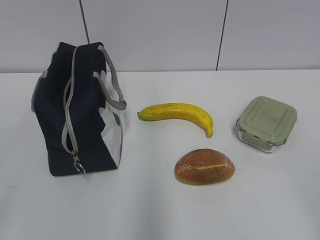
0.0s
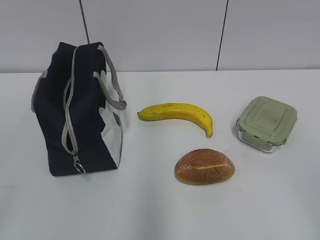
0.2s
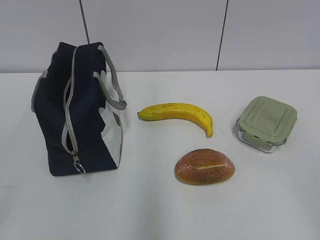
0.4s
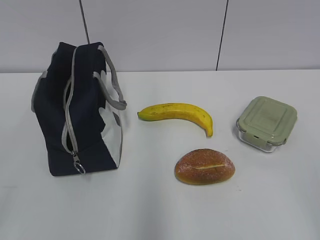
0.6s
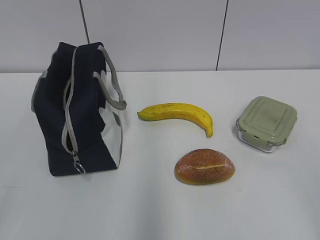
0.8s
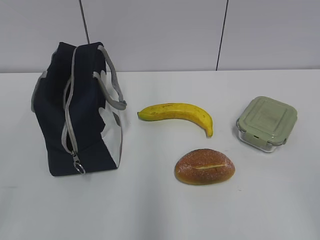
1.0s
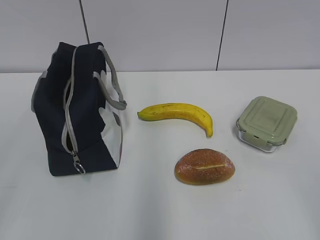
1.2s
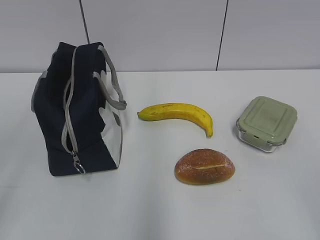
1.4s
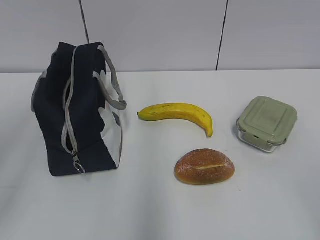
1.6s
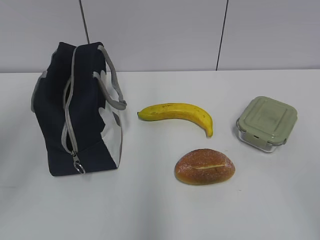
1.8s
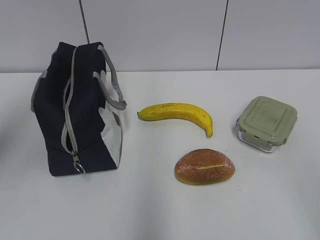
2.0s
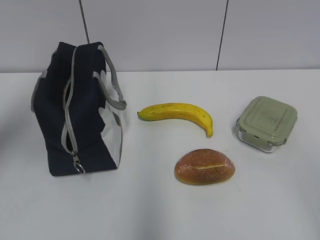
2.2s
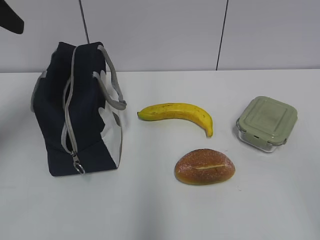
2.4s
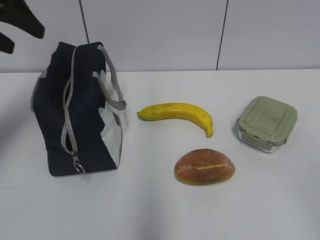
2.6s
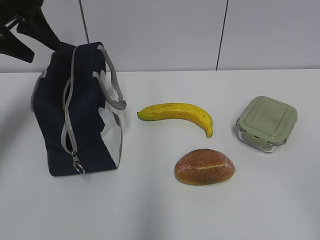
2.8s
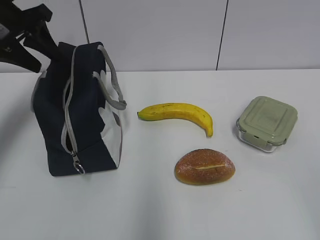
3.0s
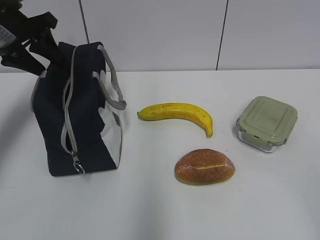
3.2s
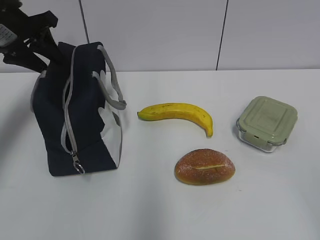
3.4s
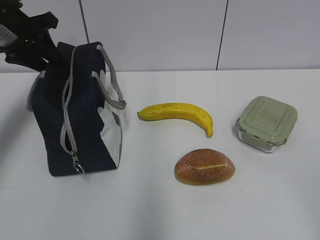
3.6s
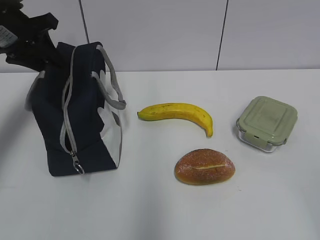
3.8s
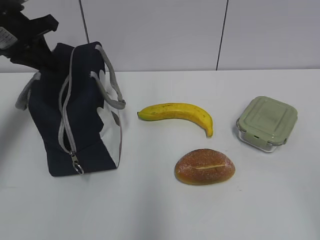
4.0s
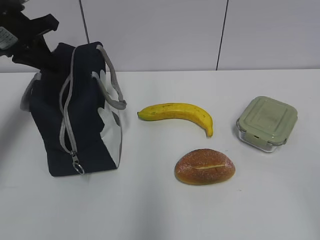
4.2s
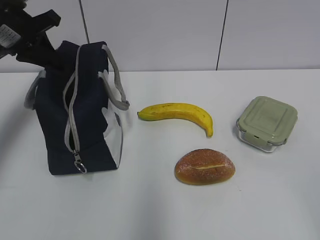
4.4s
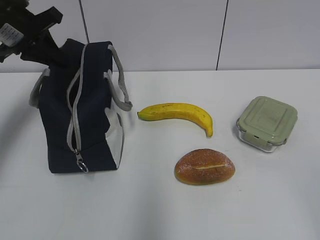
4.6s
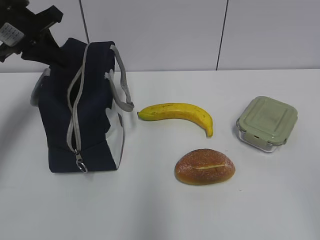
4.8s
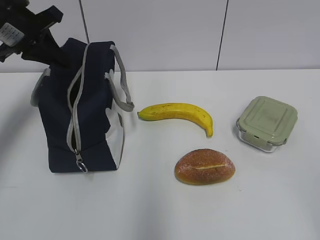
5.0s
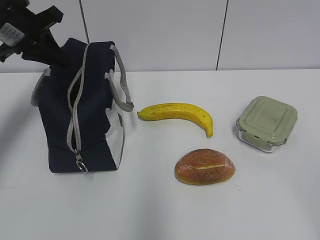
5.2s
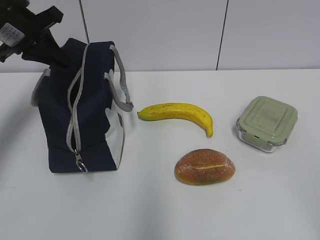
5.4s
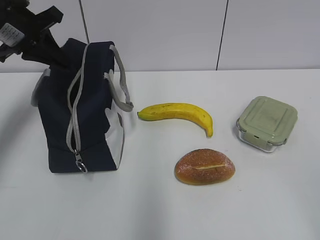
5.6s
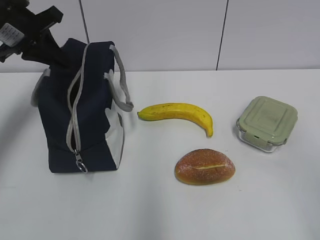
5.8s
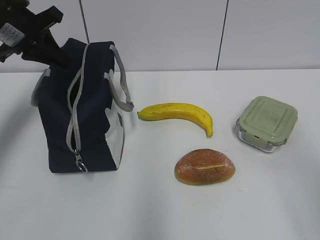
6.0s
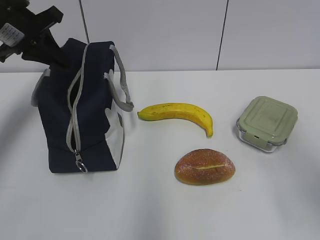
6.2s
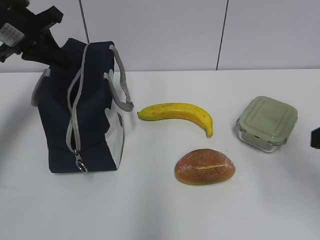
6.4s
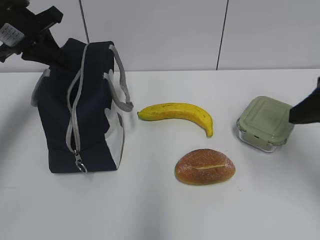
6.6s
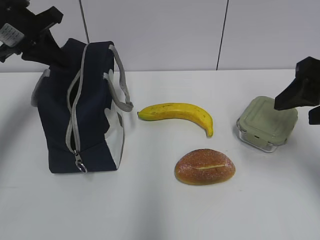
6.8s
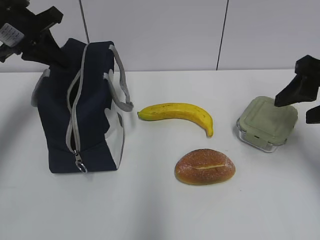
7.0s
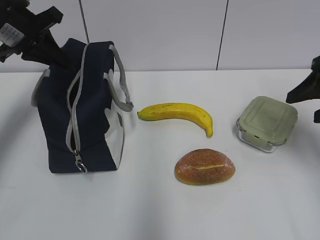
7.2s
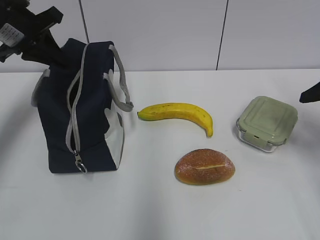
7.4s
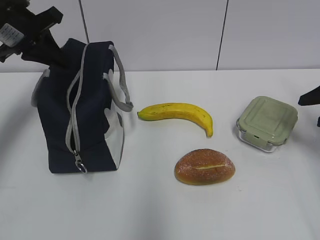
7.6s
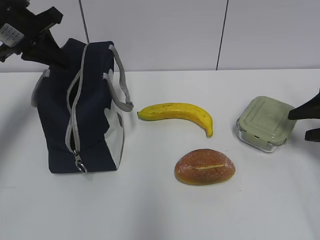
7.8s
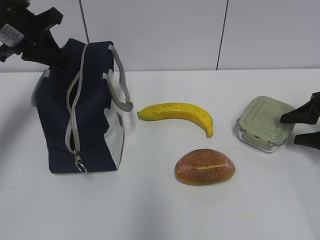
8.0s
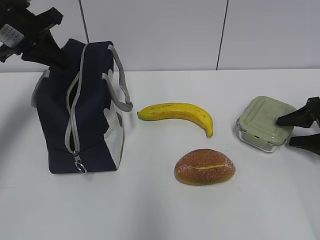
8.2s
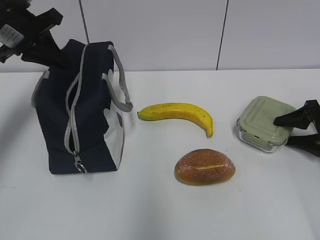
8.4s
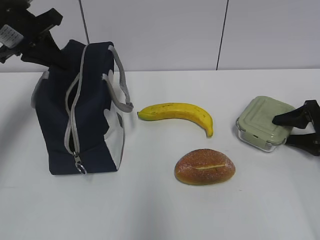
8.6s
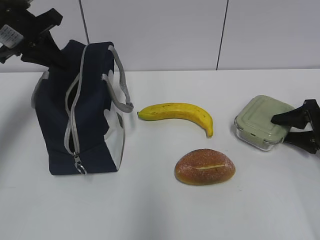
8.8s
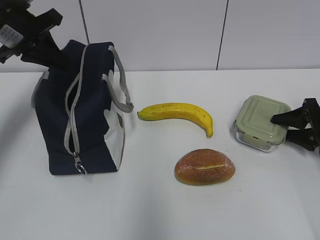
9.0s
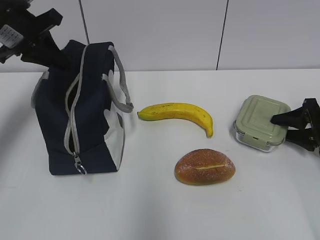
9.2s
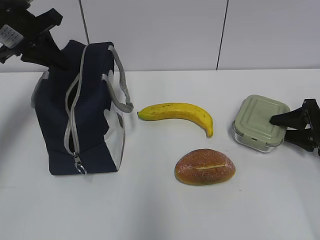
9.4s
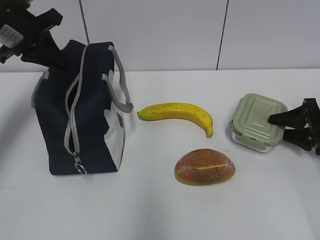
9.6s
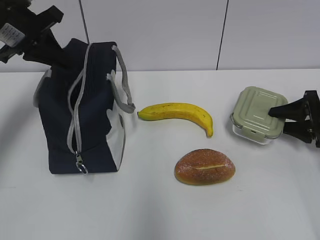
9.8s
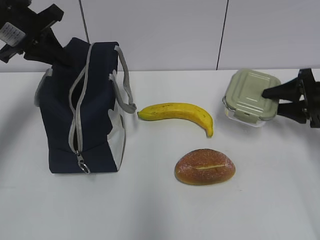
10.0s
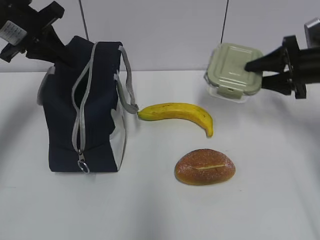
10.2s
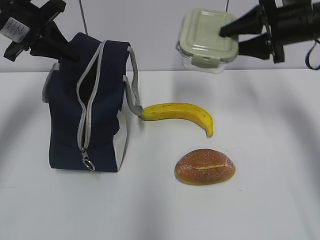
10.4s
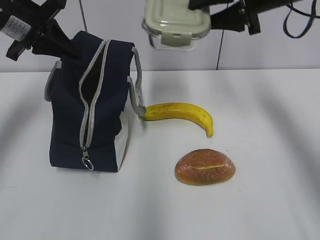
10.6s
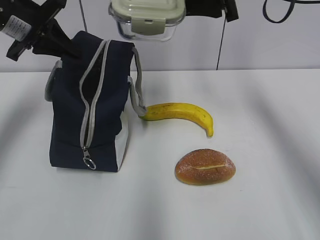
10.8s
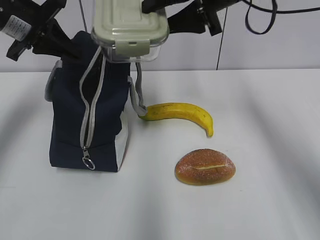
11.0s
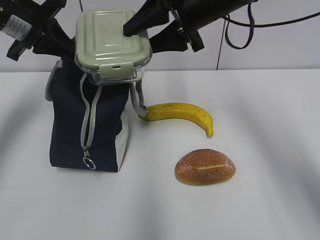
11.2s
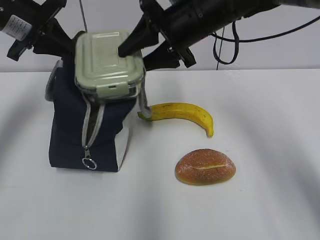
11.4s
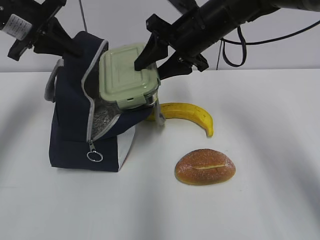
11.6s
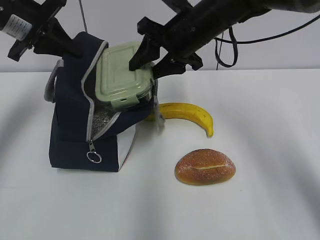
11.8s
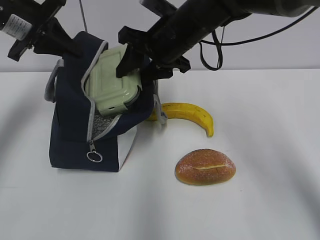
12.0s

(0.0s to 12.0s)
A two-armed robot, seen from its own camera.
Step, 0.0s - 9.0s: Grab the lunch box with your right hand.
1.6s - 3.0s: The left gripper shifts some 30 cm forward.
3.0s - 4.4s: The left gripper closes.
4.4s - 6.0s: The right gripper moves forward, some 5 cm.
6.0s - 7.6s: The right gripper travels forward by approximately 25 cm.
7.6s - 9.0s: The right gripper is displaced downward by approximately 10 cm.
9.0s - 10.4s: The right gripper shifts some 20 cm upward and to the left.
10.4s - 12.0s: The right gripper shifts about 20 cm to the left.

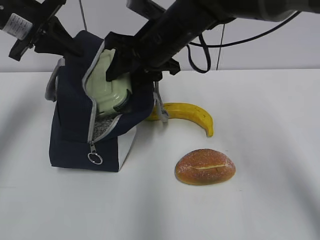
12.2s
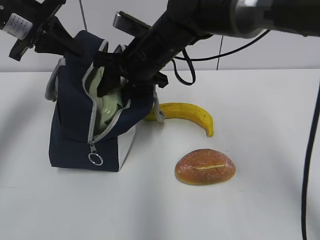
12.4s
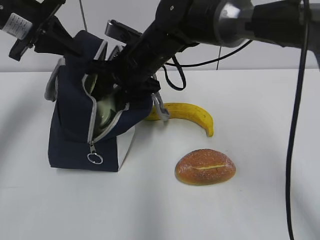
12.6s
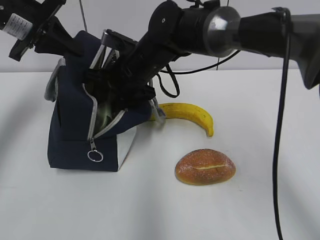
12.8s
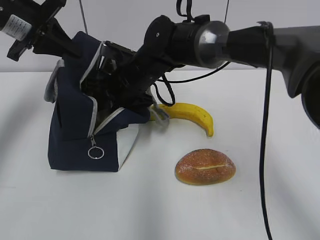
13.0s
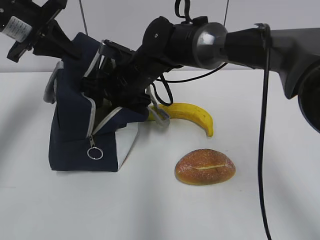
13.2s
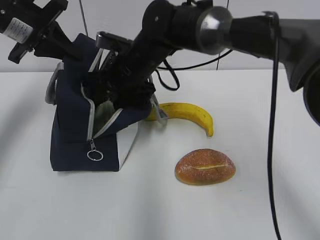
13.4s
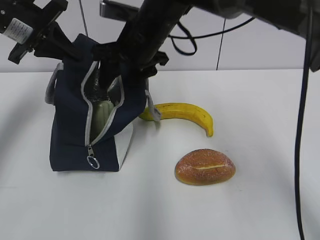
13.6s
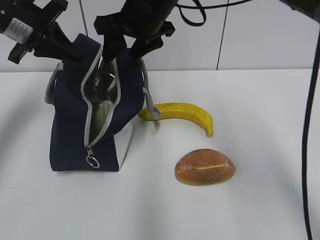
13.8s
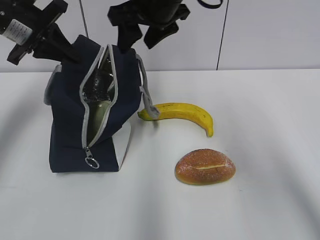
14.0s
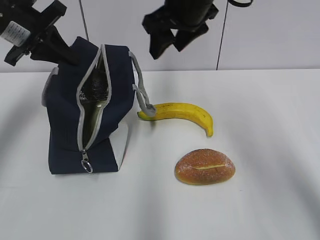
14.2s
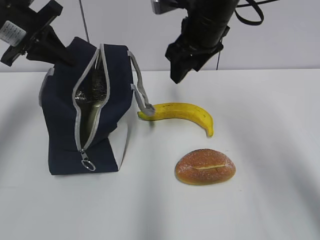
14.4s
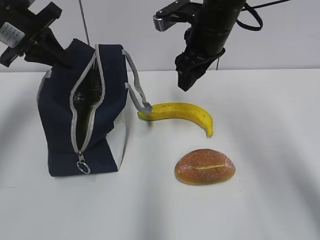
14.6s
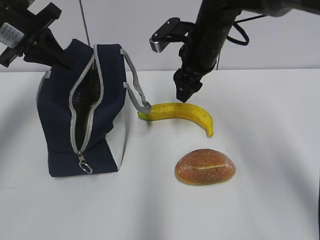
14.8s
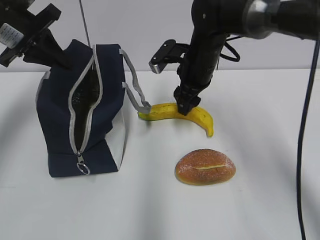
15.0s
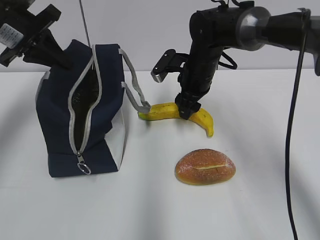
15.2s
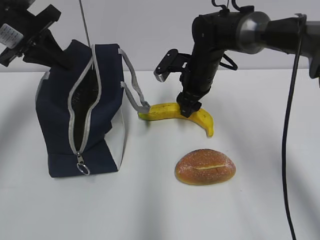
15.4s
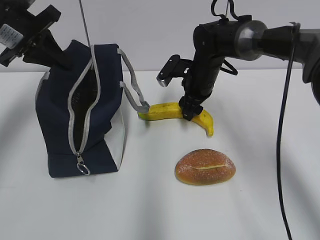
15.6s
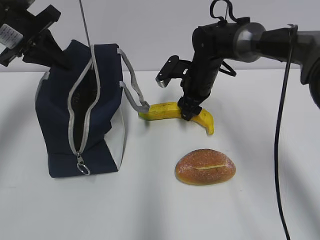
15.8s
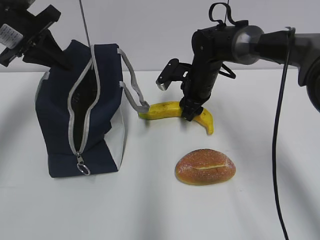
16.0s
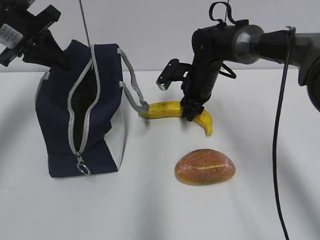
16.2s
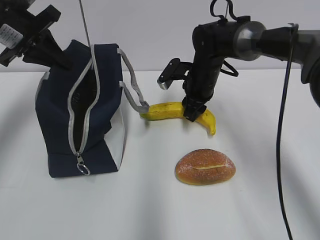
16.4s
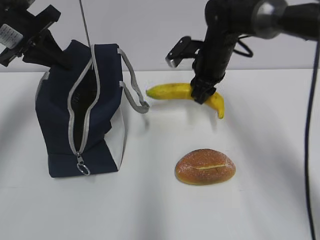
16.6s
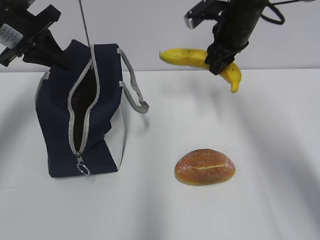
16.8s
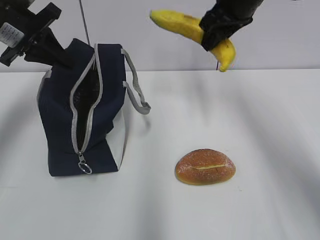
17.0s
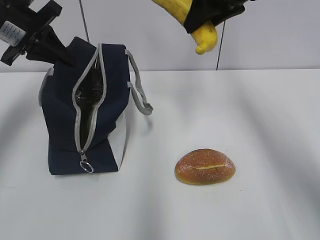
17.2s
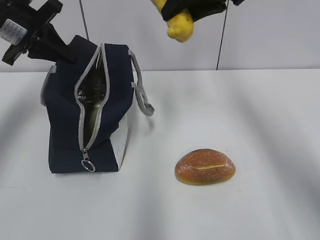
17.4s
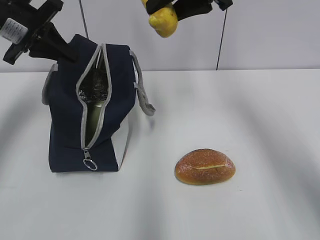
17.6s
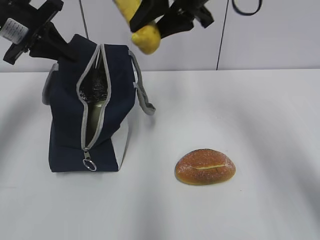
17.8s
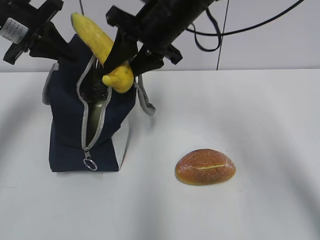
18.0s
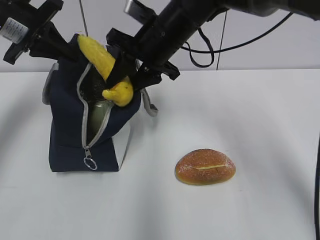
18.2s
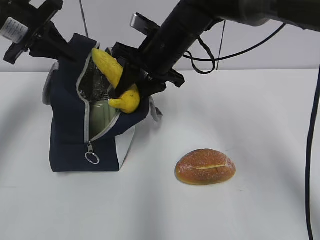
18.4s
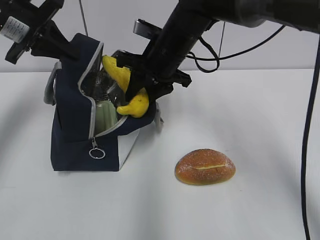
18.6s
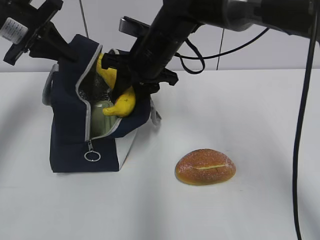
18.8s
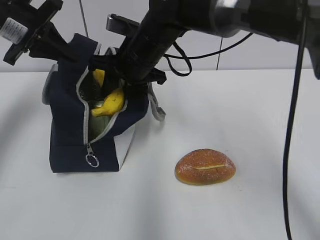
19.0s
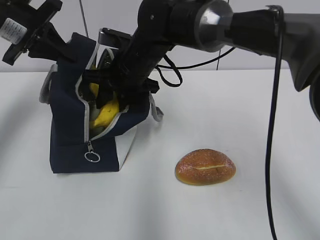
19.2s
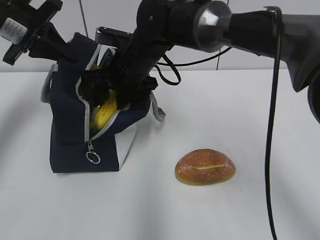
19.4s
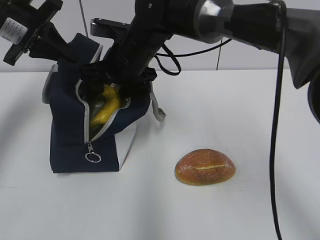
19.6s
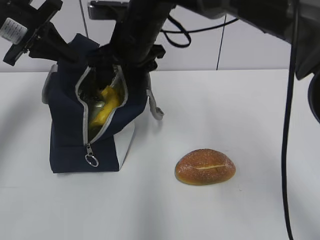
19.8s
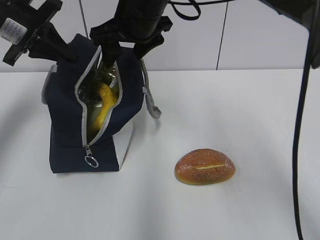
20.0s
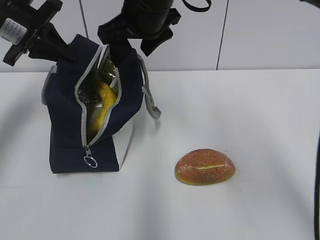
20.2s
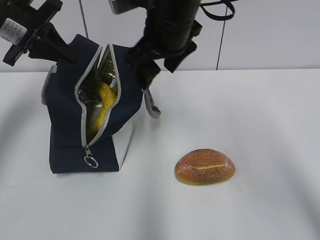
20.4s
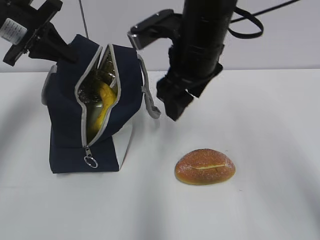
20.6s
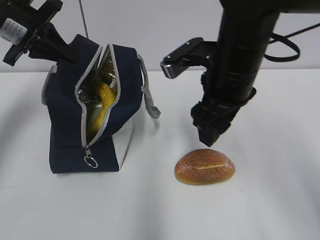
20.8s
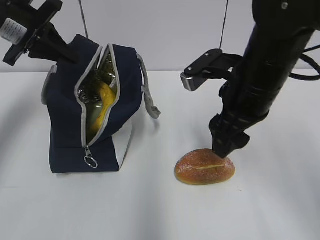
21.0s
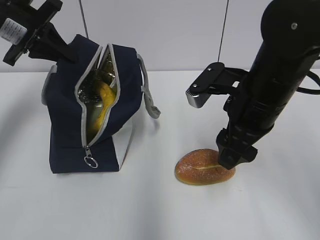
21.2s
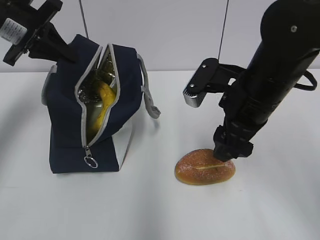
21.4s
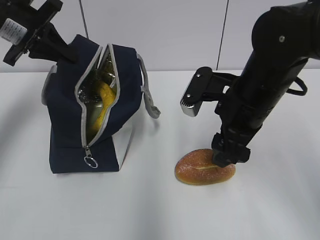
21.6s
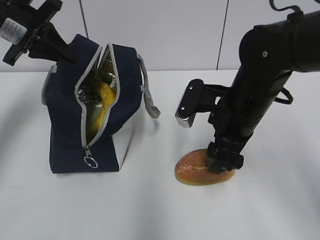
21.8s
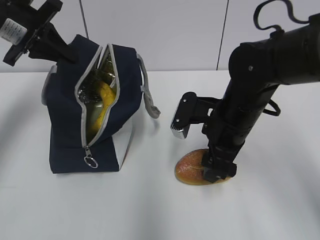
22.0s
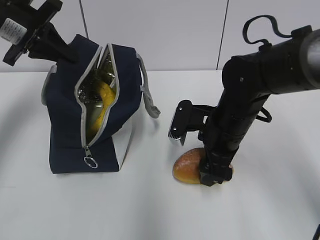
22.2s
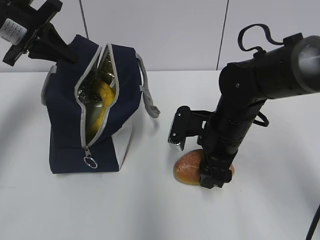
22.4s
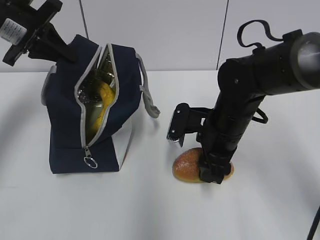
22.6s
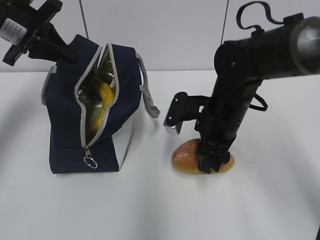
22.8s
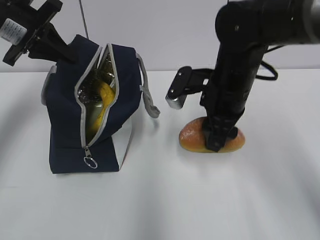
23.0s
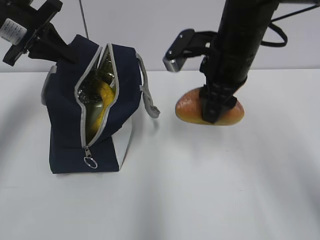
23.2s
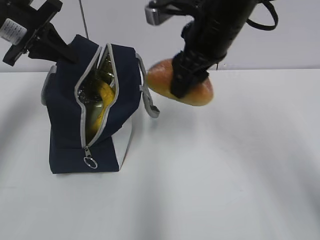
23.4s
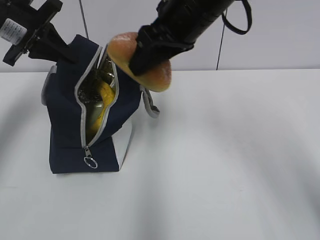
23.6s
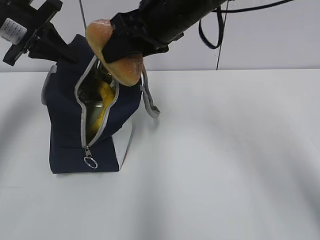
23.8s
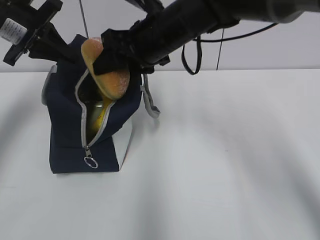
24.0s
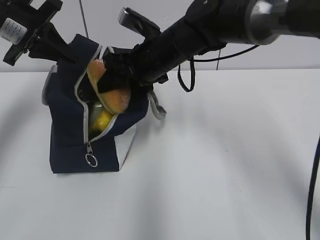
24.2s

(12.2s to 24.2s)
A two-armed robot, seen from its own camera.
Step, 12.2s - 13.4s: Place it into the bag with your right hand.
Step, 13.6s - 16.0s: Grab the banana with your right hand.
Step, 16.4s - 19.6s: Place it into the bag with your right hand.
Step, 20.0s - 22.4s: Grab the bread with your right hand.
12.2s - 13.8s: The right gripper moves some 10 cm downward and comes back.
13.8s - 15.2s: The right gripper travels downward and to the right by some 15 cm.
15.2s - 16.6s: The grippers stay close to where they were, moving slightly.
16.6s - 18.2s: The right gripper goes some 15 cm to the left, upward and backward.
18.2s - 19.8s: The right gripper opens its fingers.
19.8s - 21.2s: The right gripper shifts some 20 cm to the right and backward.
21.2s - 22.6s: The right gripper goes some 10 cm downward.
22.6s - 24.2s: The right gripper shifts roughly 15 cm to the left, upward and forward.
